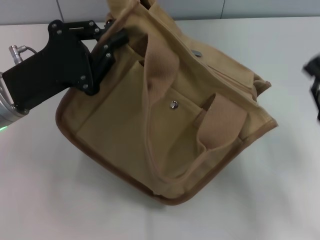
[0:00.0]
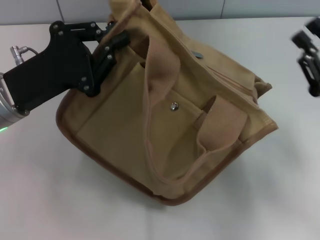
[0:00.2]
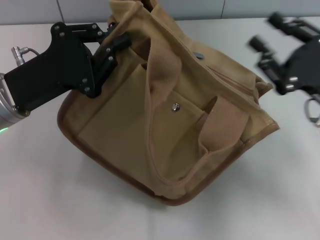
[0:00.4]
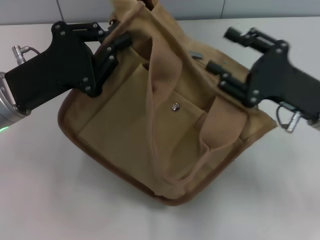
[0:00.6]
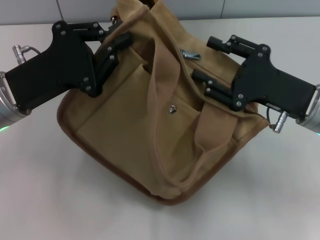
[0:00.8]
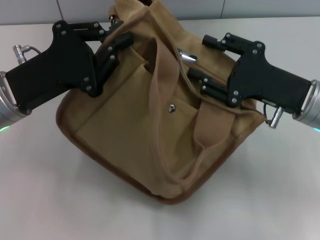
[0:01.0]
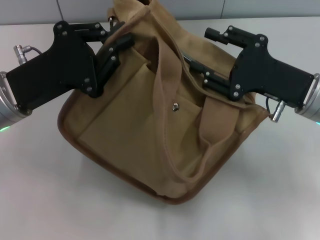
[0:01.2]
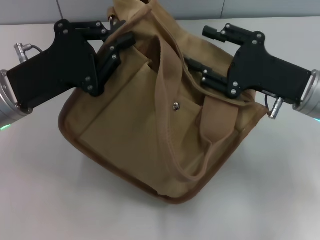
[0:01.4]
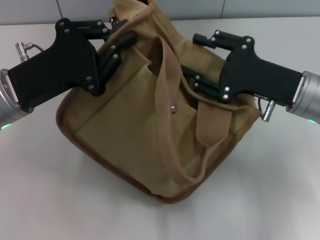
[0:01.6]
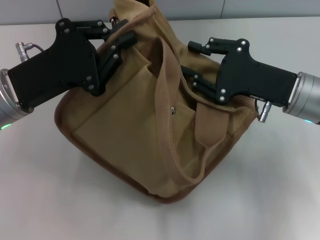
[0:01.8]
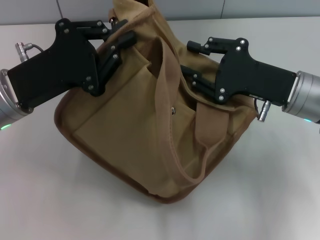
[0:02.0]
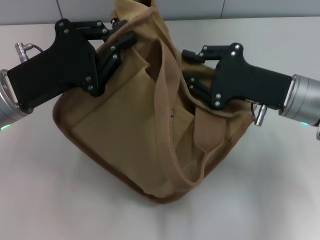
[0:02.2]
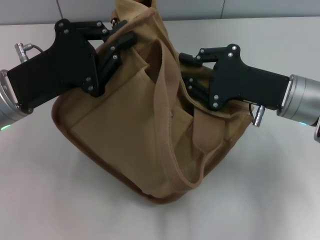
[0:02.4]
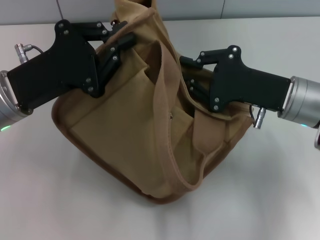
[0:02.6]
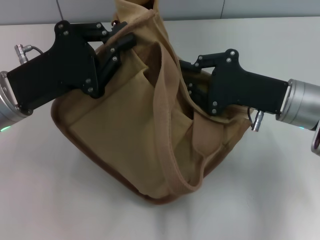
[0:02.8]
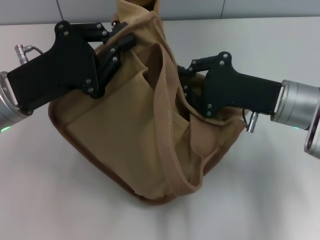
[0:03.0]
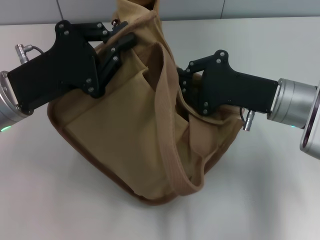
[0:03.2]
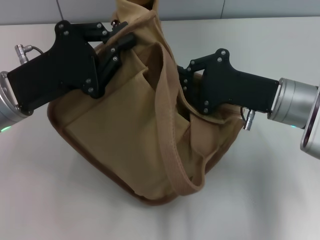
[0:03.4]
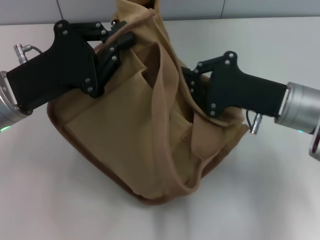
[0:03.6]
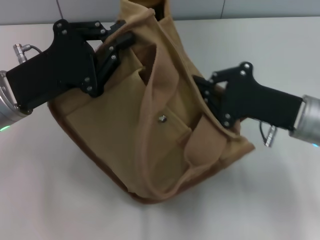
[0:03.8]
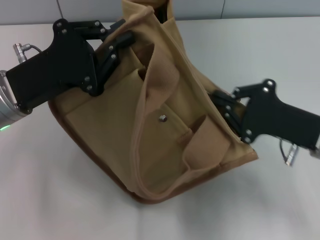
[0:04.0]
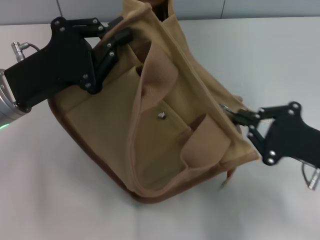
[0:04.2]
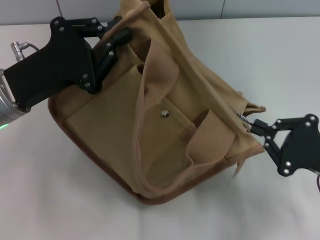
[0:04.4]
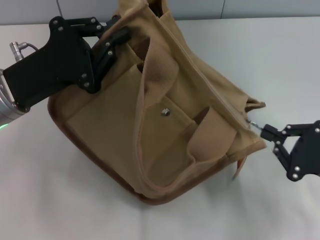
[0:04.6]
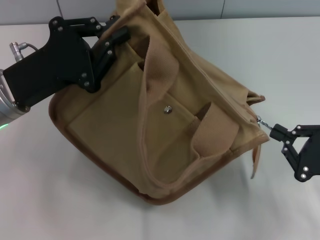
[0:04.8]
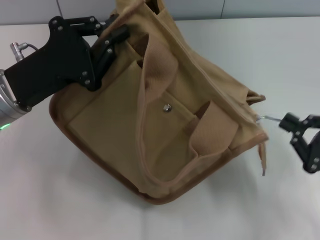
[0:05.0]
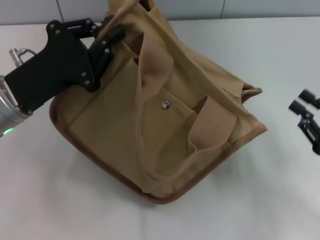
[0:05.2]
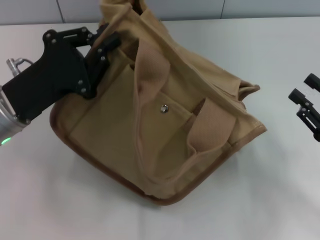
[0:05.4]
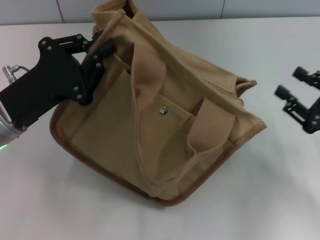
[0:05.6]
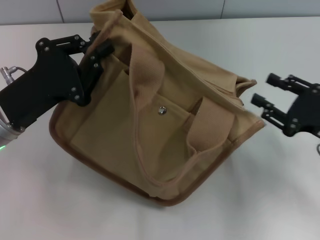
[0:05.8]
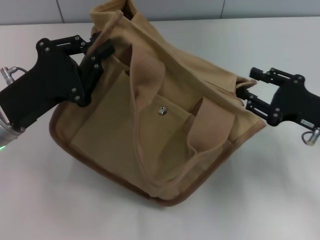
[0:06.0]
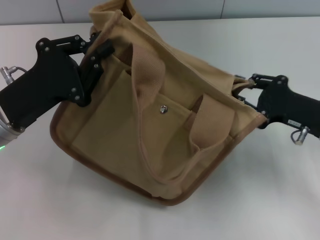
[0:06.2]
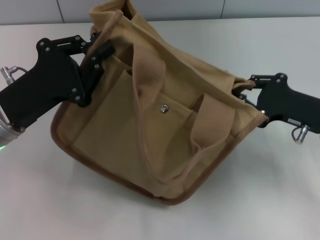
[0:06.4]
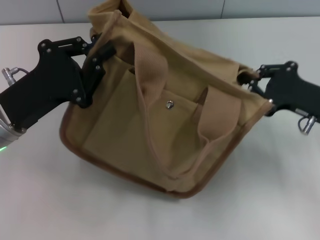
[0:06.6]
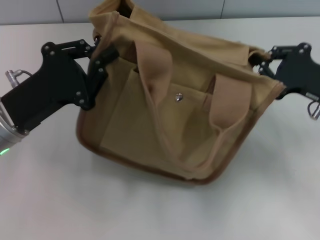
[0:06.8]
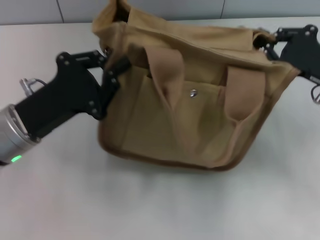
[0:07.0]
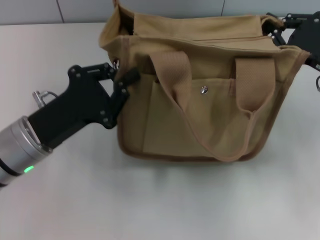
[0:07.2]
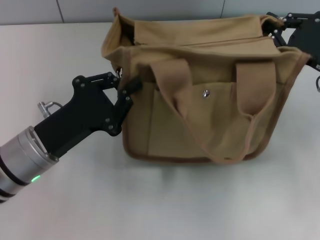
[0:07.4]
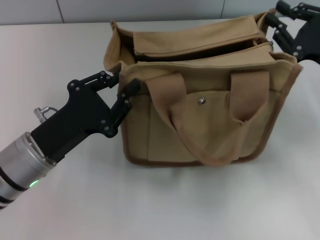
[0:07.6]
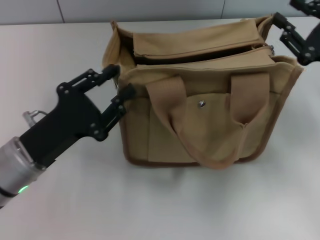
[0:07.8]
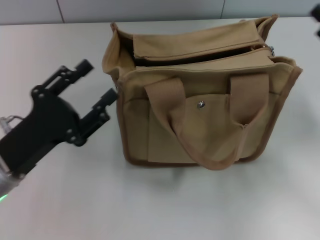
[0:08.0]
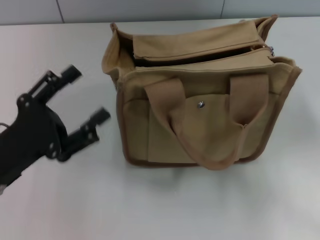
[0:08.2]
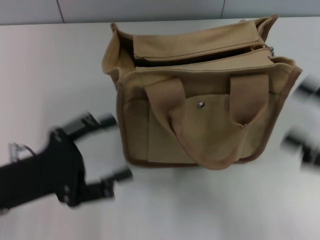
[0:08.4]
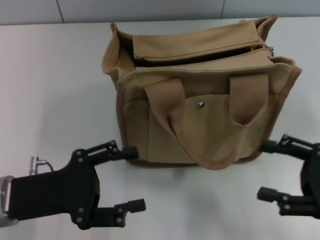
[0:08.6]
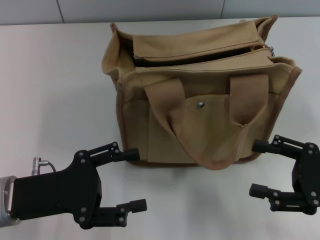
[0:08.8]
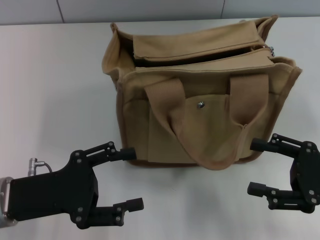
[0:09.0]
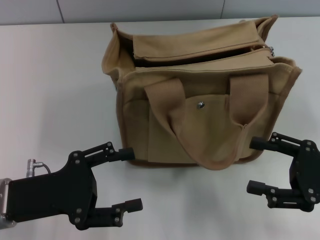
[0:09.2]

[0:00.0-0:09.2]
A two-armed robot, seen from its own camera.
Step, 0:00.0 to 0:05.0: Pull open the zipper with your right hand.
Step, 0:05.2 to 0:07.6: Grab the bag with your left hand.
0:00.0 to 0:01.6: The right gripper shifts about 15 cm forward and to the left, and opens up.
0:01.6 to 0:03.0: The right gripper closes up.
0:03.0 to 0:04.6: The right gripper shifts some 15 cm backward and to the right.
0:04.6 to 0:06.2: The right gripper goes roughly 10 cm forward, and opens.
0:06.2 to 0:07.6: The right gripper ends up roughly 5 cm from where it was, and closes its fingers. The left gripper moves roughly 5 cm.
0:07.6 to 0:09.2: The left gripper changes place by approximately 5 cm, and opens its fingers. Meanwhile the right gripper goes approximately 10 cm backward, and opens.

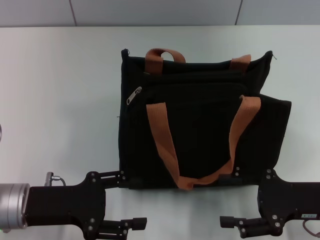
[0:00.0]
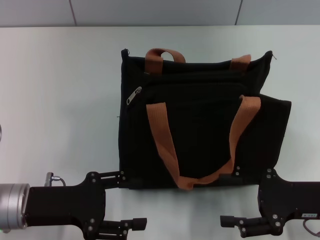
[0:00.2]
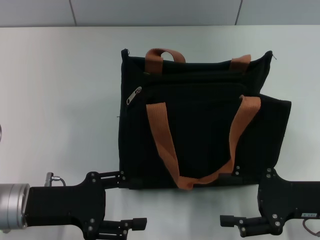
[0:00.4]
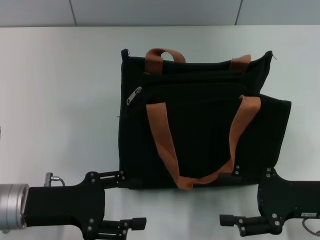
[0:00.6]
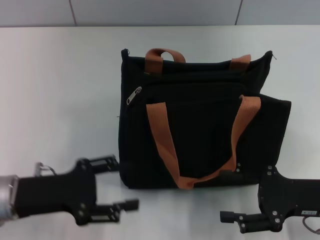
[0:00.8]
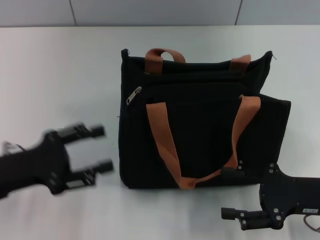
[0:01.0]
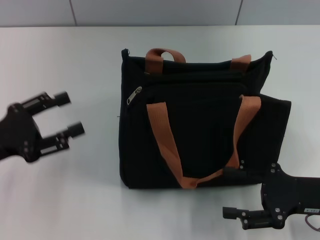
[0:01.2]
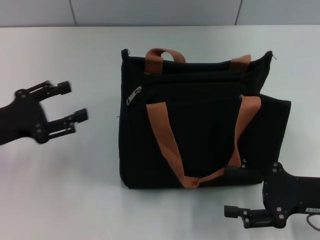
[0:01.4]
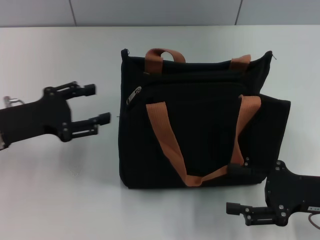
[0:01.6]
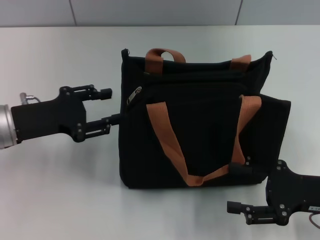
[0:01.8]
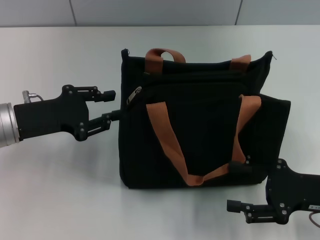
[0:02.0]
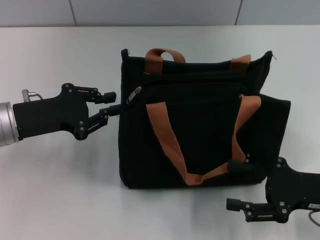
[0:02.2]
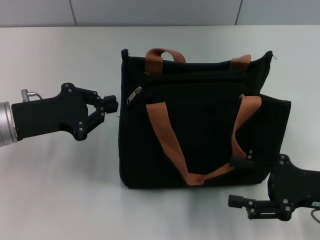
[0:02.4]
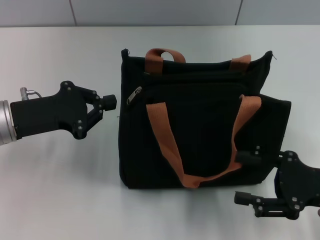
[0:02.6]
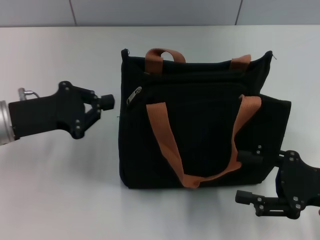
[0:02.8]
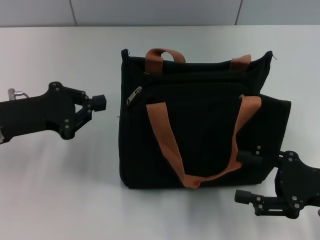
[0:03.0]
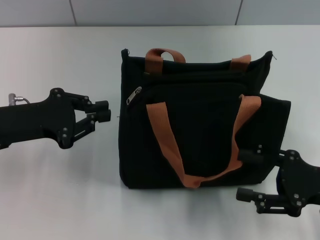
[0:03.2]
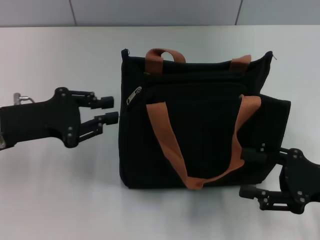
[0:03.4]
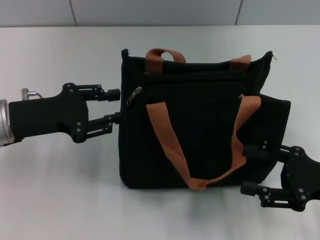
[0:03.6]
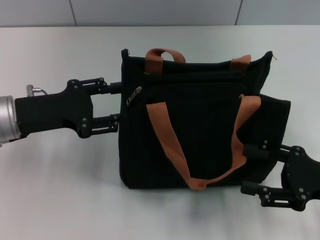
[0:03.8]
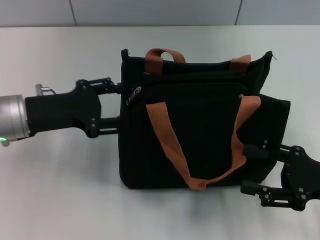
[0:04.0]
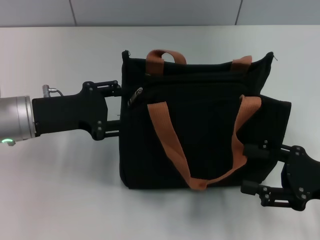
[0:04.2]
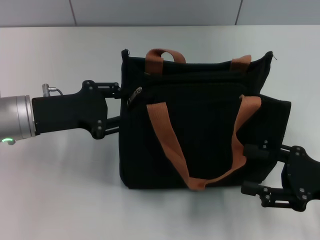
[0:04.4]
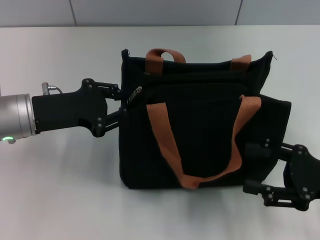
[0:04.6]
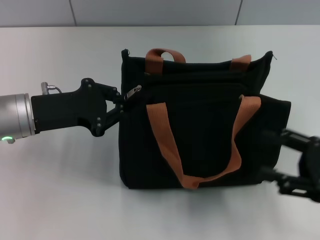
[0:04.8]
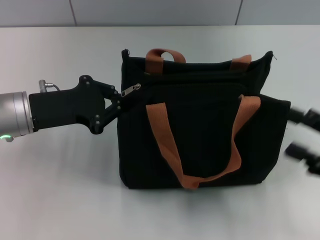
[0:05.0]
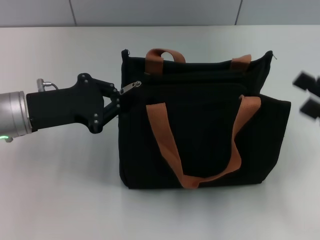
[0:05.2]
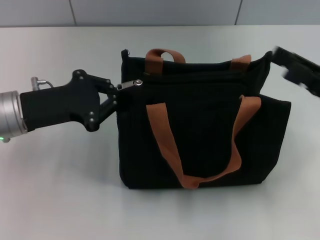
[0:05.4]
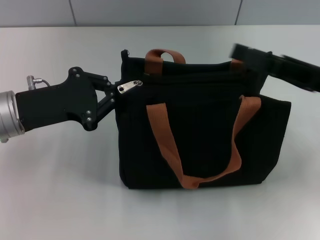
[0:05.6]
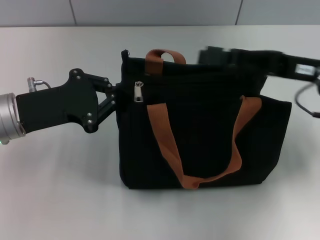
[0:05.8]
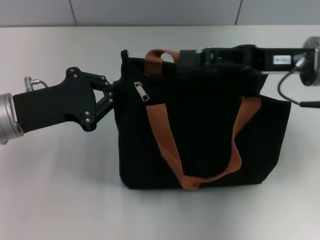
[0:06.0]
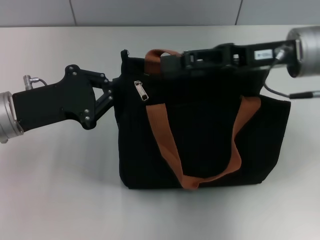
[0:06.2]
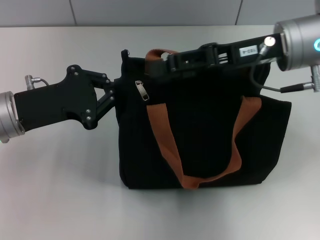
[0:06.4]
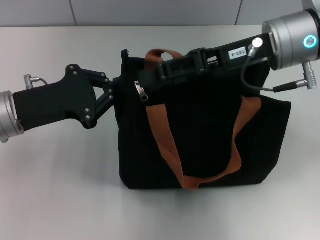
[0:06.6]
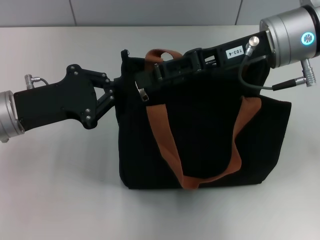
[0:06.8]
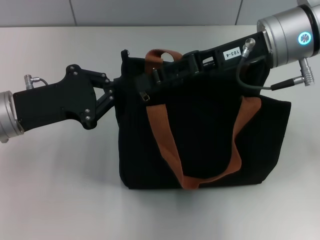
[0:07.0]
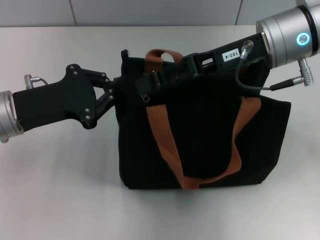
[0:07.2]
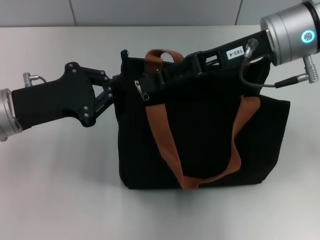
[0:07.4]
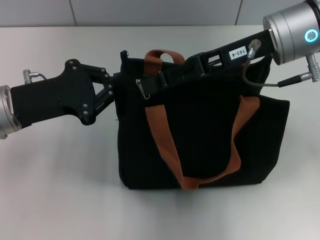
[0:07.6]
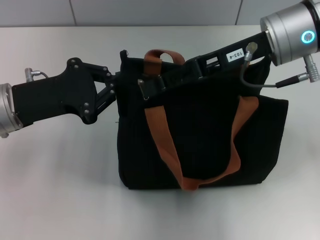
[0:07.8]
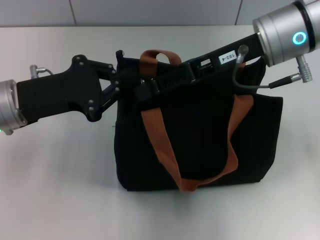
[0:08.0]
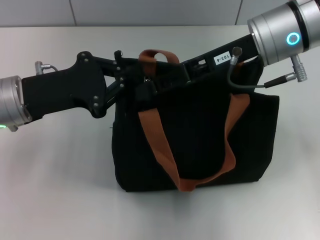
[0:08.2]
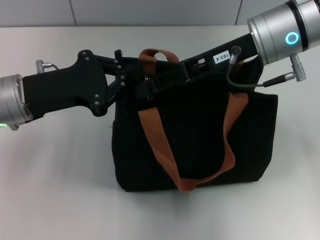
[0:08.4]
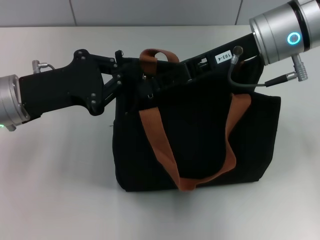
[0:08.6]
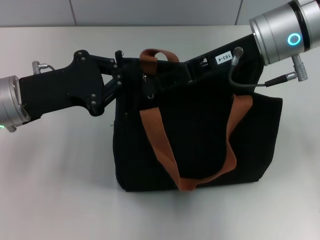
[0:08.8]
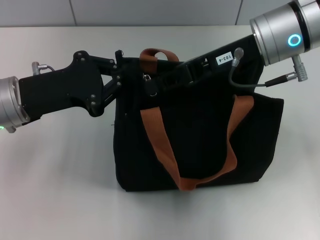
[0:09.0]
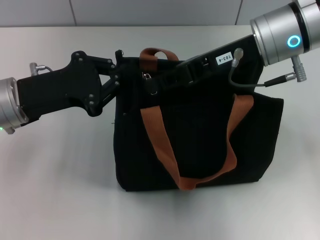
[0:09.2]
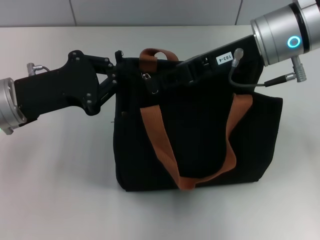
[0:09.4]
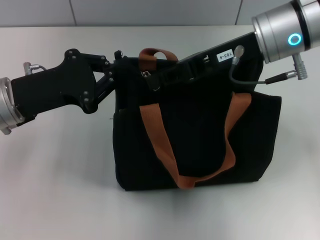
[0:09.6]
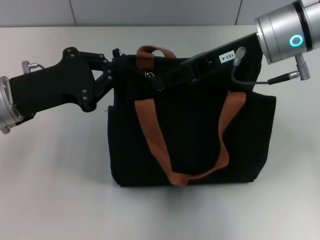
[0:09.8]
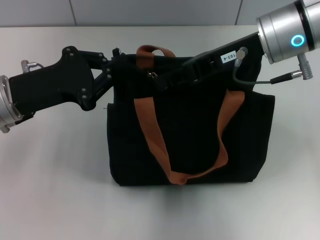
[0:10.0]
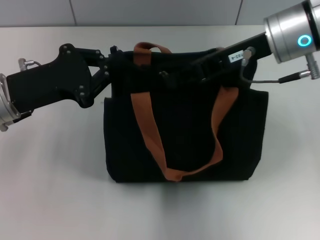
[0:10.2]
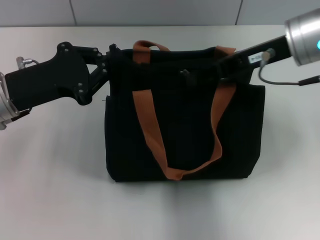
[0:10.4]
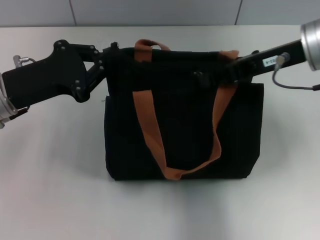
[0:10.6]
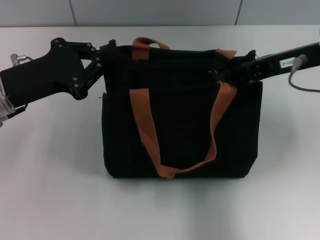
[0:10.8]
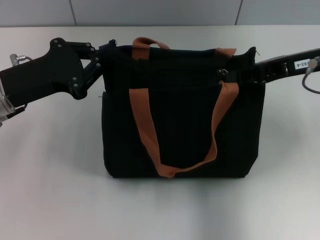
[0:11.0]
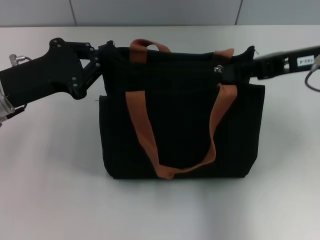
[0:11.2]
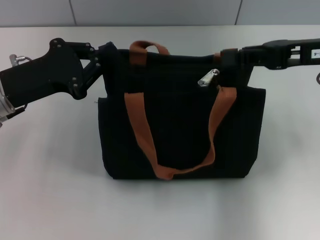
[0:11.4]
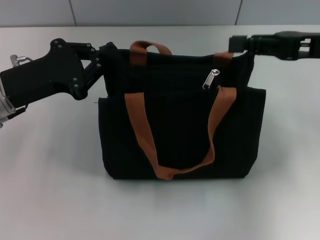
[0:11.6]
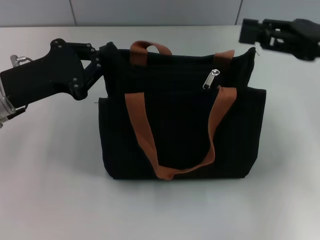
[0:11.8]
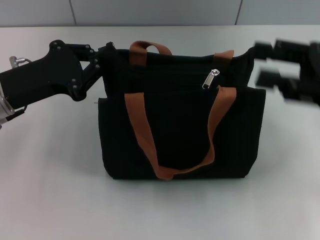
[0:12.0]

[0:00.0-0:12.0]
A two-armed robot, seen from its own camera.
Step, 0:00.0 to 0:11.2: Pull up the zipper with your right hand.
0:00.0 to 0:01.6: The left gripper shifts approximately 5 cm forward.
0:01.6 to 0:03.0: The left gripper closes its fingers.
0:03.0 to 0:04.4: The left gripper opens its fingers.
0:04.4 to 0:06.0: The left gripper closes. Meanwhile the right gripper travels forward, upward and to the left by some 20 cm.
0:06.0 to 0:07.6: The right gripper shifts by about 5 cm.
0:07.6 to 0:09.0: The right gripper closes its fingers.
0:10.4 to 0:12.0: The right gripper goes roughly 15 cm to the right and backward, and opens its fingers.

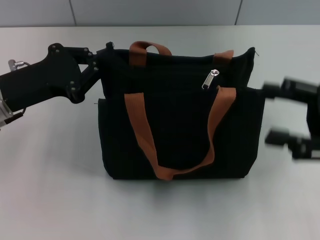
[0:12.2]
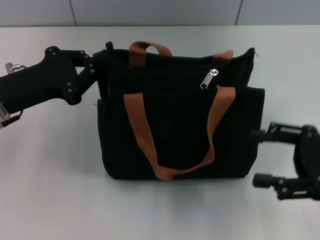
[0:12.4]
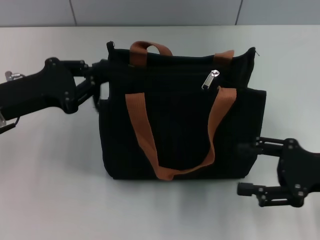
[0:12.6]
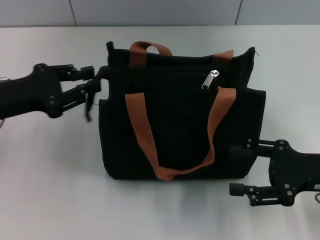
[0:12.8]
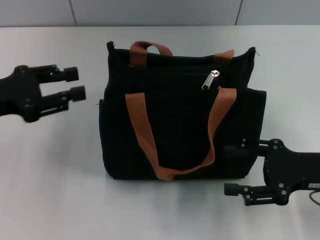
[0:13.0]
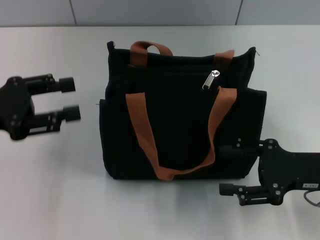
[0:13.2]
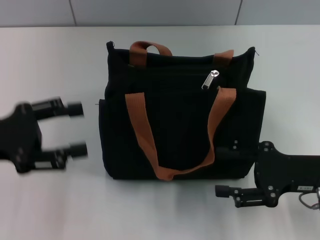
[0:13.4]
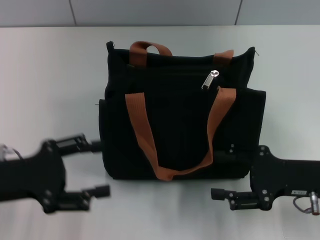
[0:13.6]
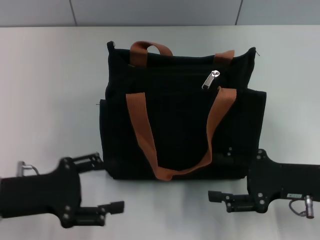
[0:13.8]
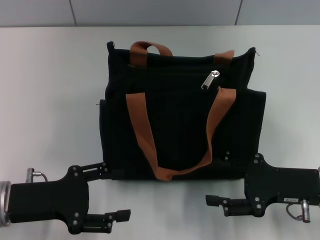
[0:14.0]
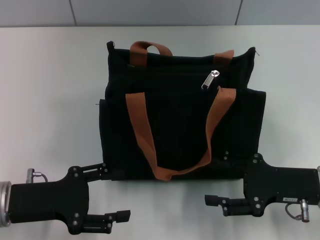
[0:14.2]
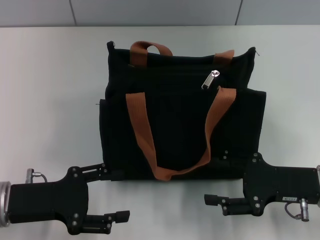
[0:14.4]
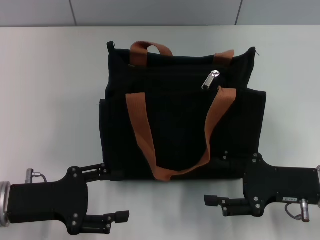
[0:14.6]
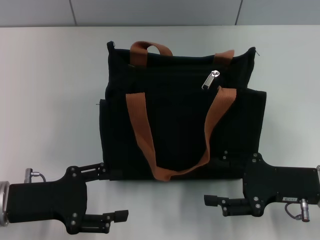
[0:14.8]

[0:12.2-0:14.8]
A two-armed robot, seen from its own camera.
0:12.2 to 0:13.4: The left gripper shifts roughly 5 cm backward, and opens, while the right gripper travels downward by roughly 5 cm.
0:13.4 to 0:14.8: The left gripper goes some 5 cm downward.
